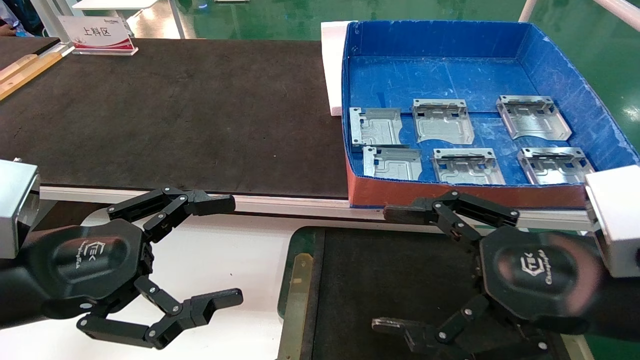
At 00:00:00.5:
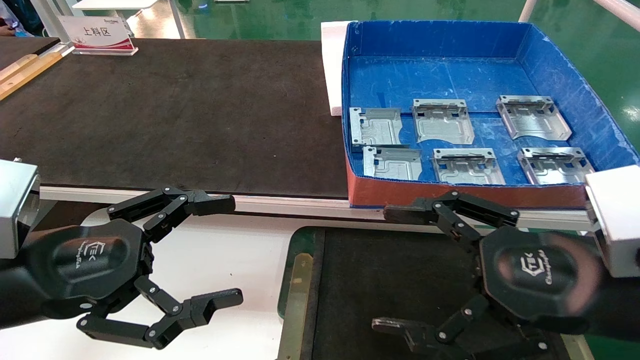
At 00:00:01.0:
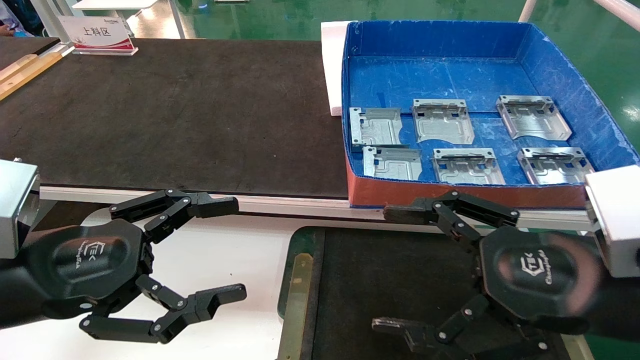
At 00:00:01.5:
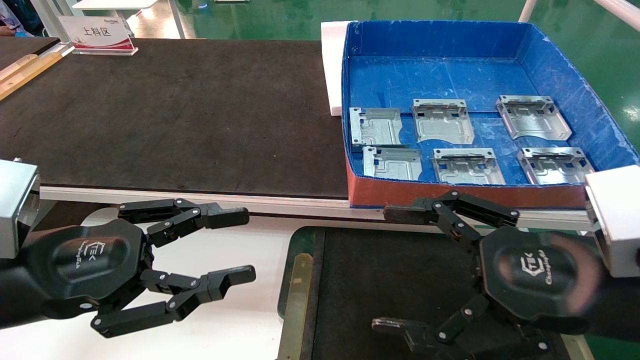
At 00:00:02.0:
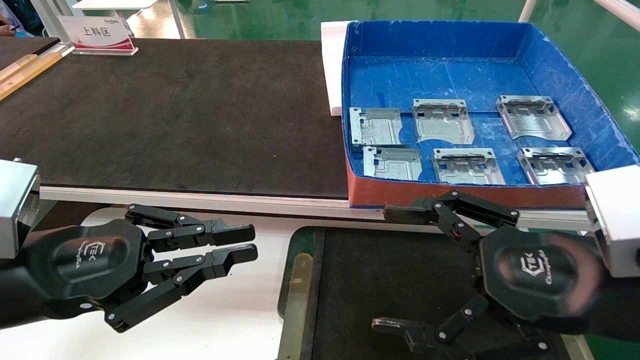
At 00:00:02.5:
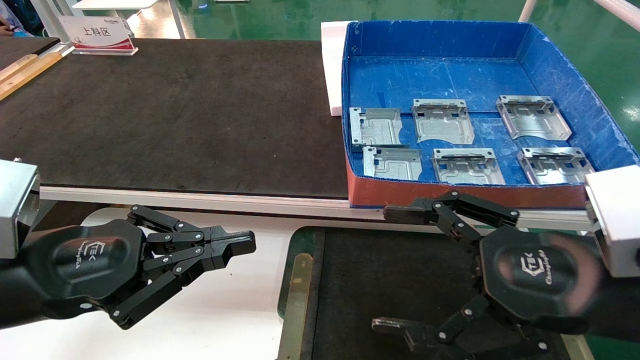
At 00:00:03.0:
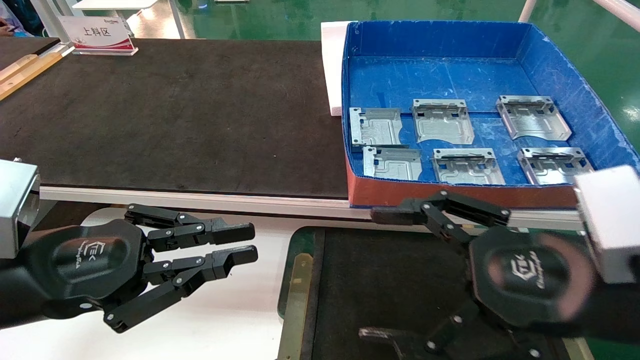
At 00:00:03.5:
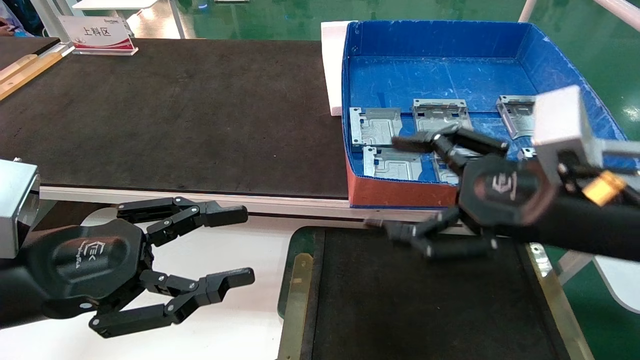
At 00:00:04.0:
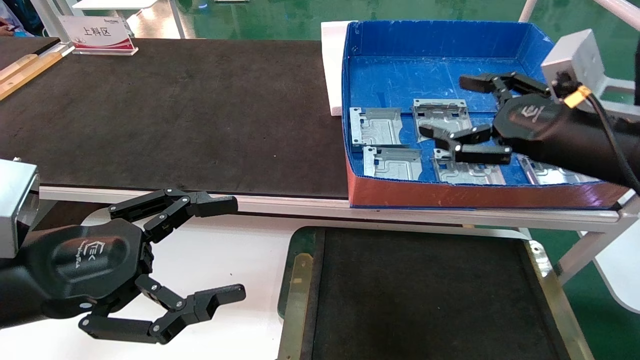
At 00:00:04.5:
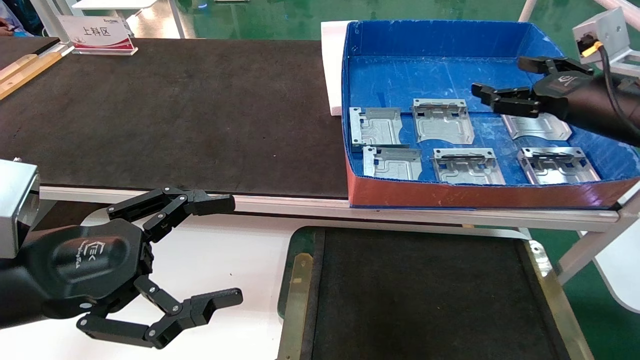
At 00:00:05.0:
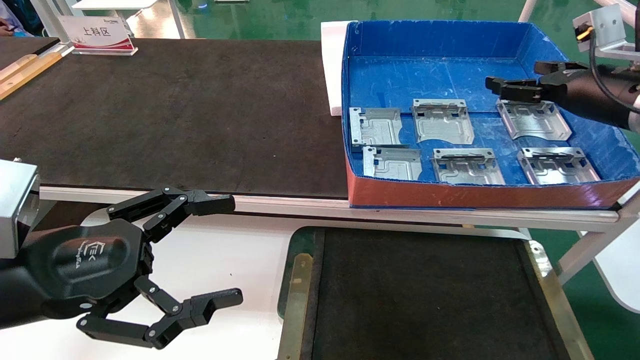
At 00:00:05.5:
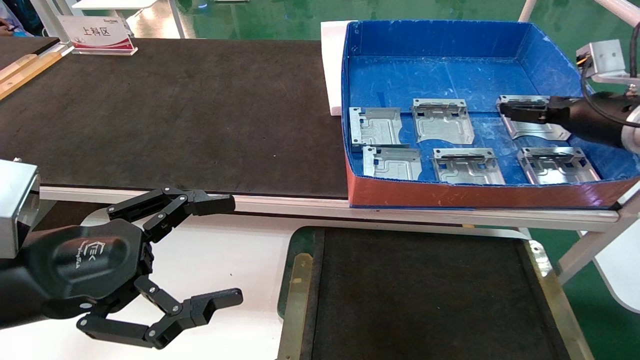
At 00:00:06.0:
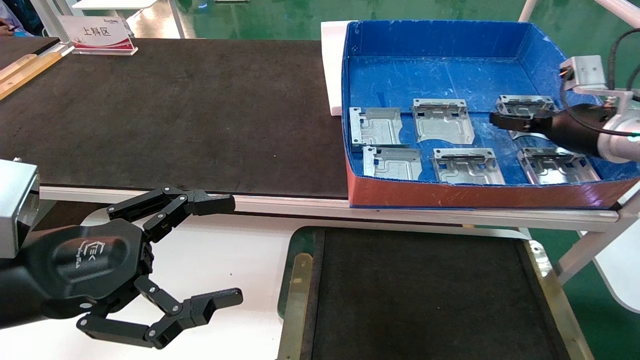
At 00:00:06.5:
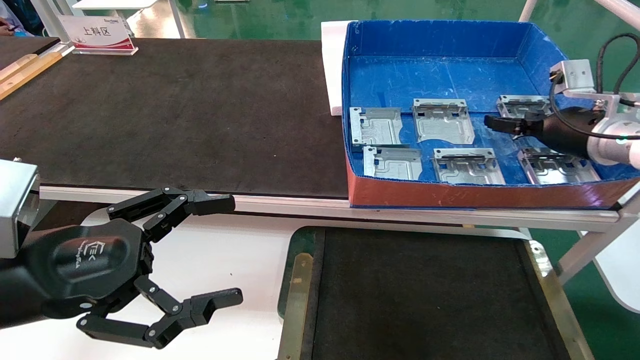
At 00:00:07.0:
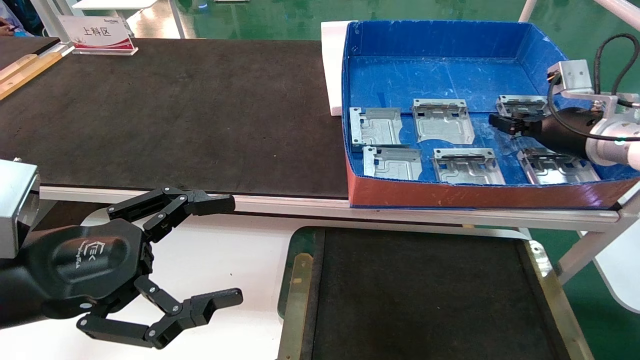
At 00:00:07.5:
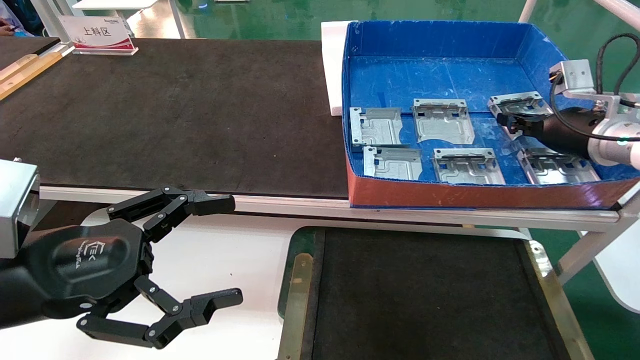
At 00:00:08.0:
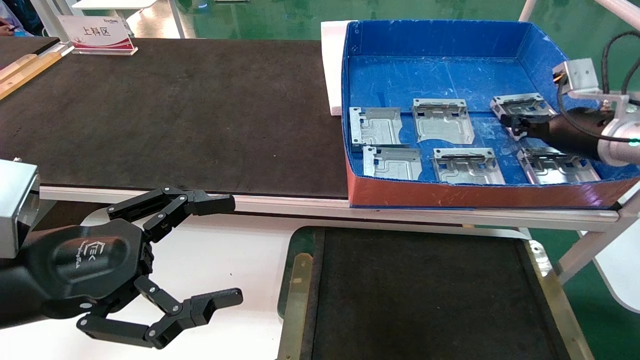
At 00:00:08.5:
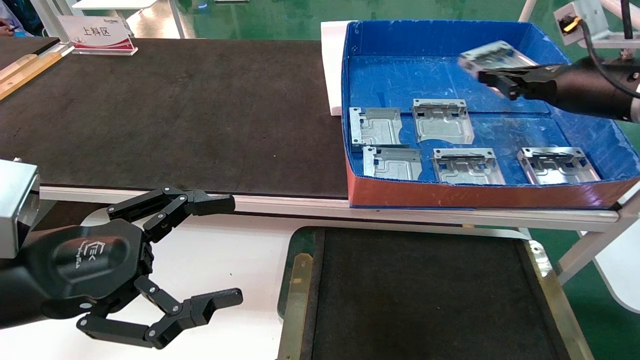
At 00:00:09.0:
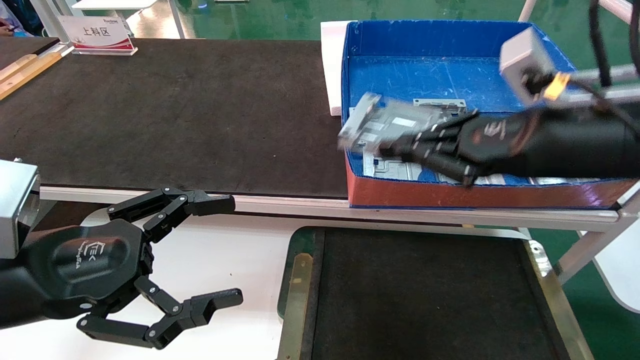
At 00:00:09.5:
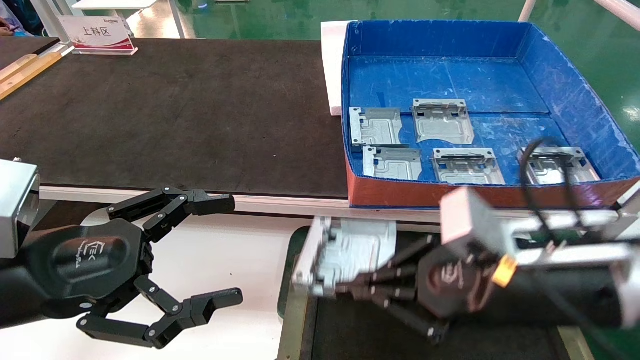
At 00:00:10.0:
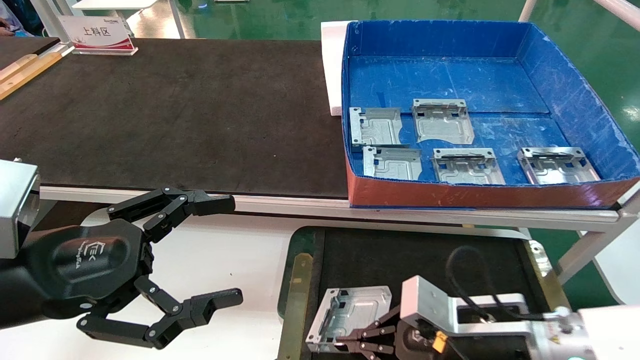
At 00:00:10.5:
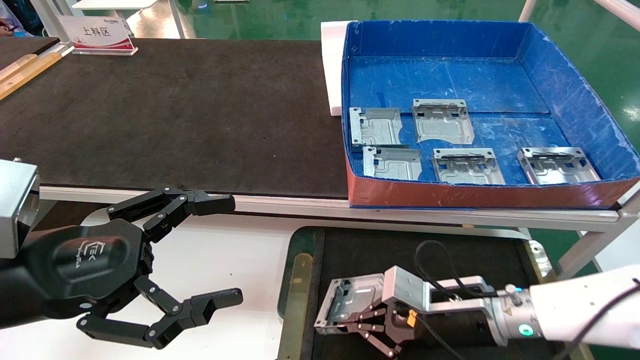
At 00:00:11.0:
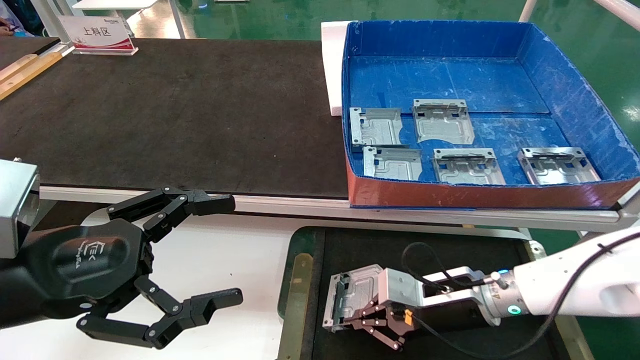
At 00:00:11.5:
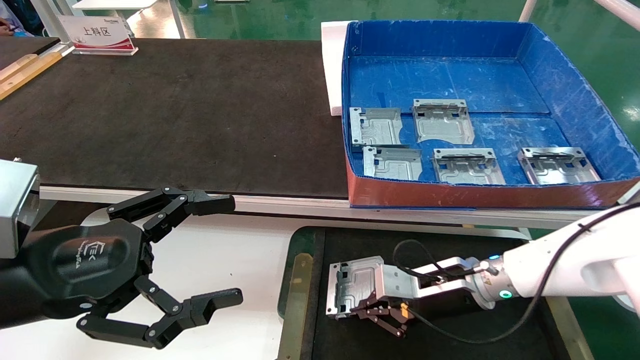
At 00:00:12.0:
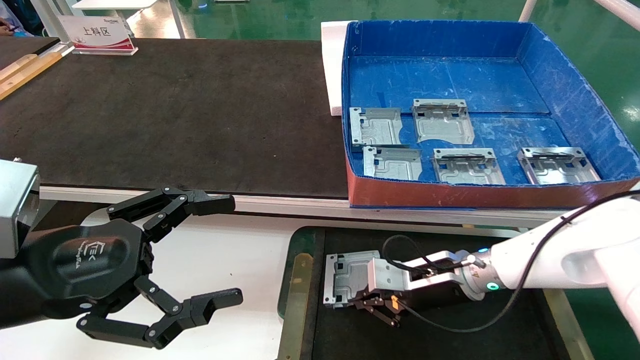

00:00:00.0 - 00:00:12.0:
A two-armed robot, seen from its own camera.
Task of the whole recording: pick up parts and place them into a black container.
Step, 00:00:03.5 - 00:00:07.5: Pick up the hard drive bracket from the feeding area.
00:00:00.0 - 00:00:02.0: The left gripper closes.
00:00:02.0 - 00:00:04.0: The right gripper moves forward, upward and to the right, about 15 cm. Meanwhile the left gripper opens its fingers.
00:00:04.0 - 00:00:06.0: The right gripper shifts some 15 cm forward and to the right.
00:00:06.0 - 00:00:08.0: The right gripper closes.
00:00:08.0 - 00:00:10.0: The right gripper shifts roughly 30 cm downward, to the left and backward.
00:00:10.0 - 00:00:12.0: The right gripper is displaced forward by approximately 10 cm.

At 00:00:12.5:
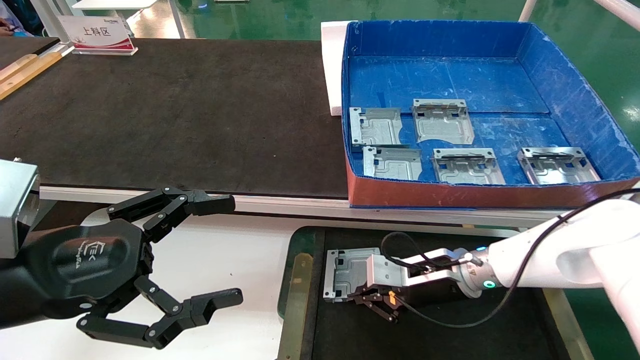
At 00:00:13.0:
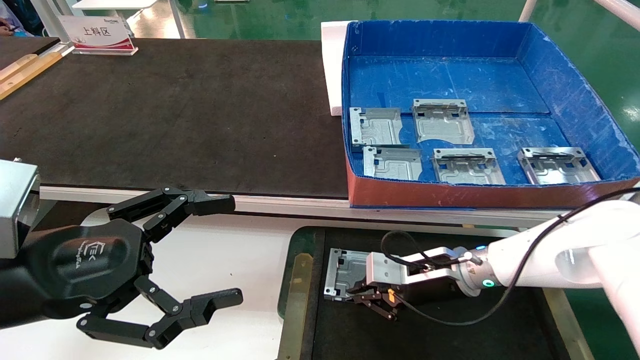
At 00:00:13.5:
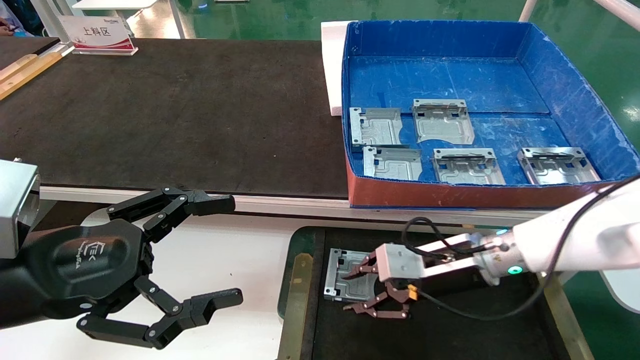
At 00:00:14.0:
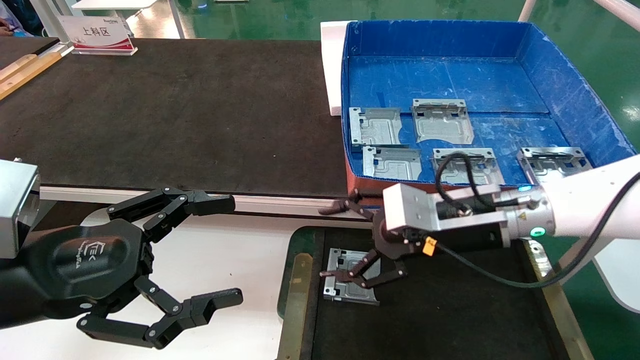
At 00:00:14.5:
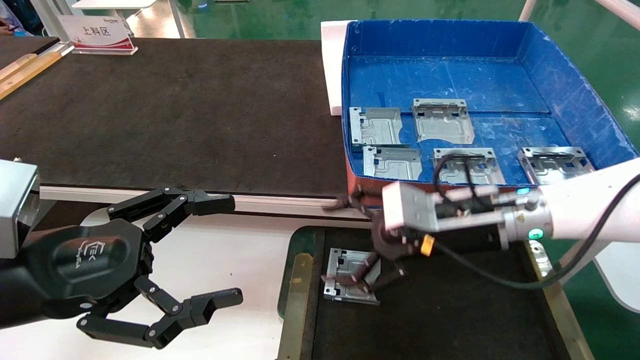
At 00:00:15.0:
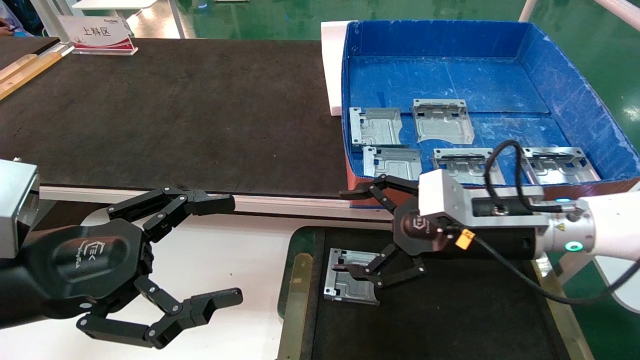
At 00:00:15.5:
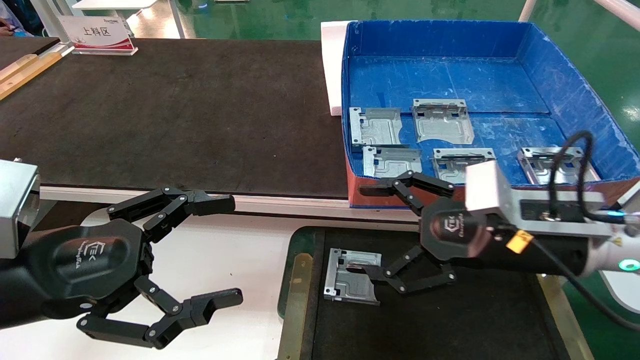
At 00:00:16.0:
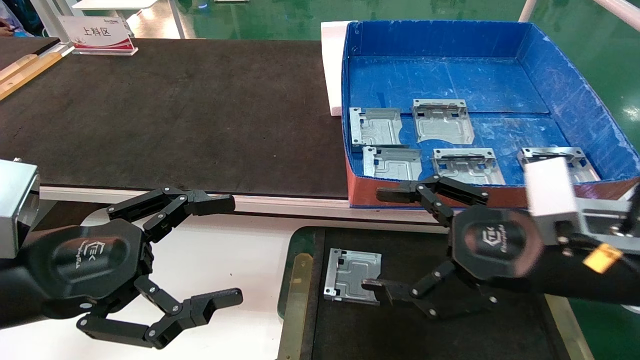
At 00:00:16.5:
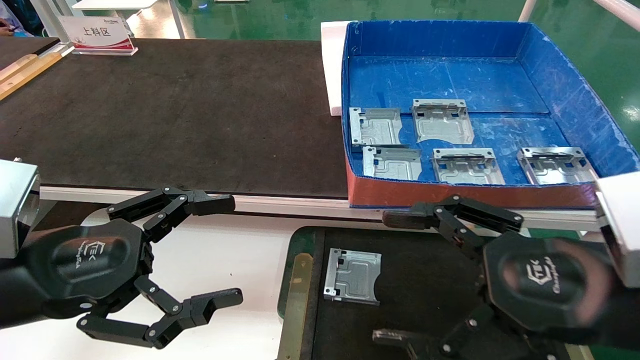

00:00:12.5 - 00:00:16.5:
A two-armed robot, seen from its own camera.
Task of the whole recording: pick up parts and place them into a black container.
00:00:12.5 - 00:00:14.5: The right gripper travels upward and backward by approximately 15 cm, and opens its fingers.
00:00:14.5 - 00:00:16.5: The right gripper travels backward by some 15 cm.
